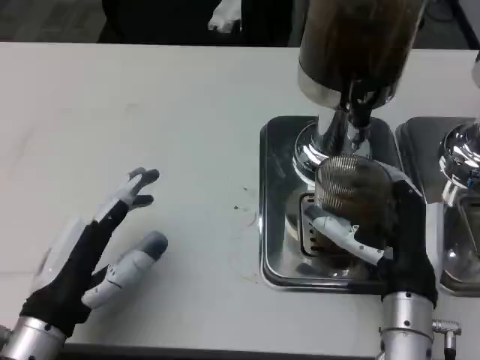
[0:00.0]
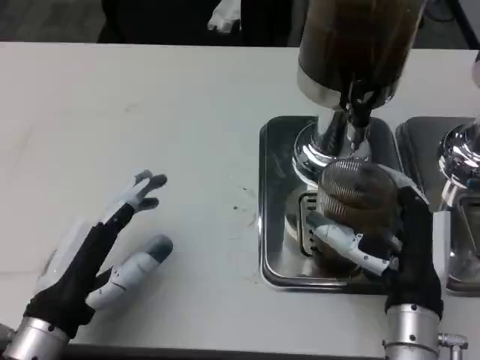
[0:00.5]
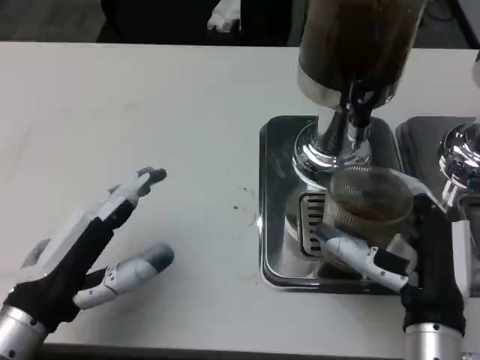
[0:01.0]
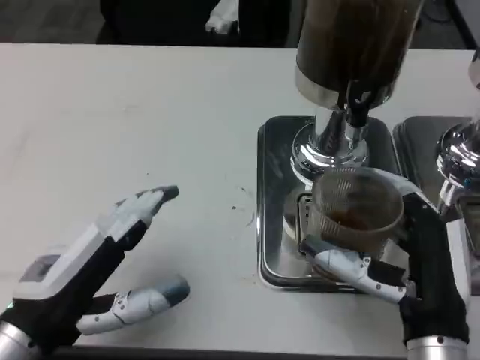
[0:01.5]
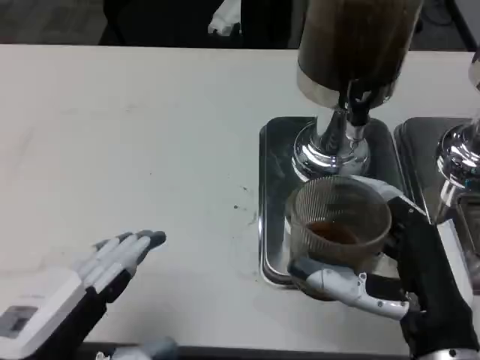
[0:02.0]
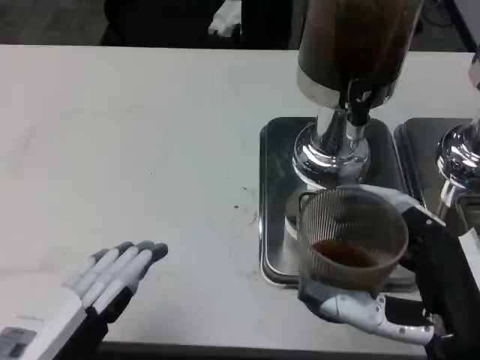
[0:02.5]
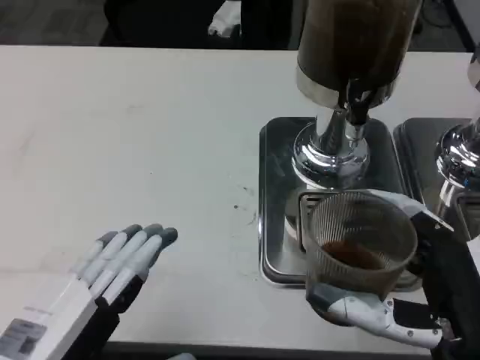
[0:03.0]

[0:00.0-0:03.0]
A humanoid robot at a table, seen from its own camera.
Task of the whole recording: Grasp the cup under the faucet to collect the drink, then remove the cup.
0:00.0 to 0:01.5: The left hand shifts some 5 cm upward, while the right hand shifts some 5 cm backward.
0:01.5 to 0:03.0: The left hand shifts roughly 5 cm backward; the right hand shifts by roughly 5 cm.

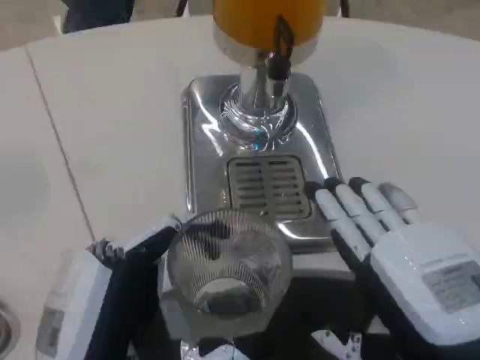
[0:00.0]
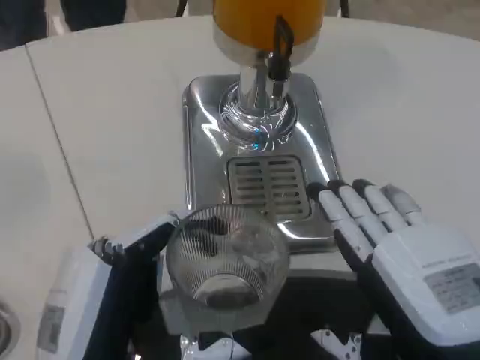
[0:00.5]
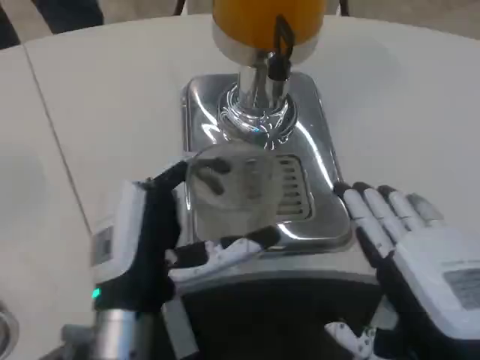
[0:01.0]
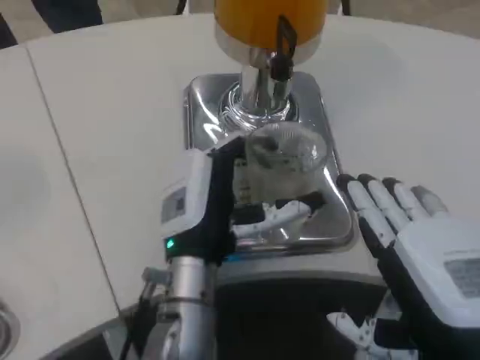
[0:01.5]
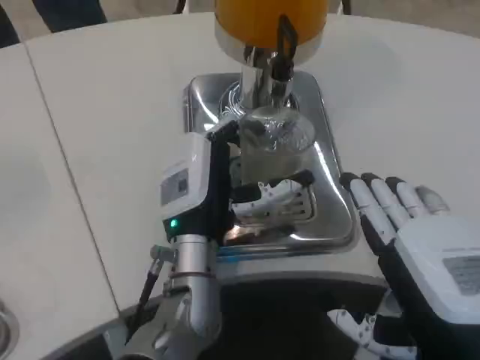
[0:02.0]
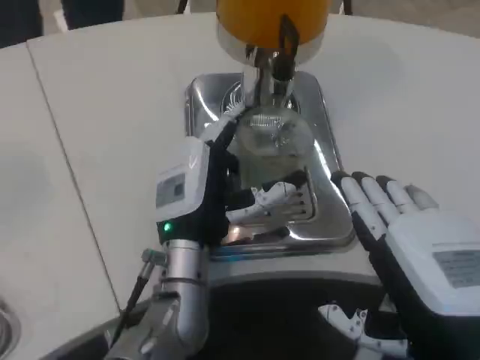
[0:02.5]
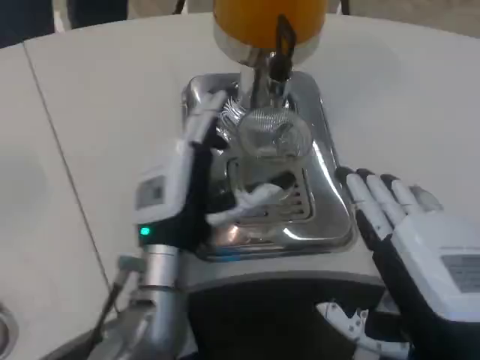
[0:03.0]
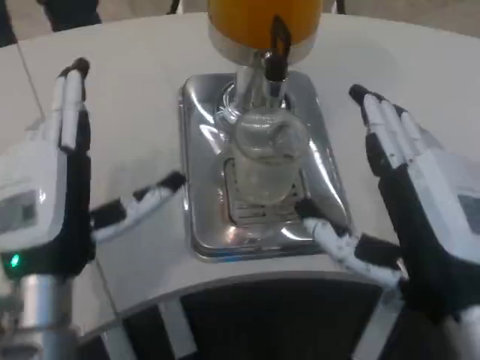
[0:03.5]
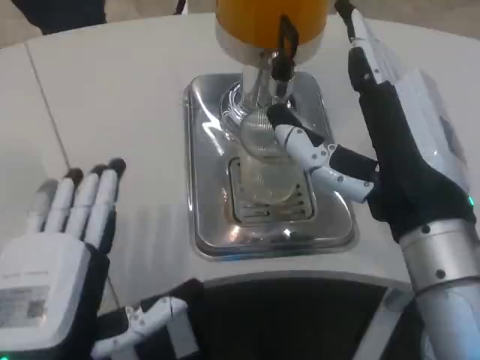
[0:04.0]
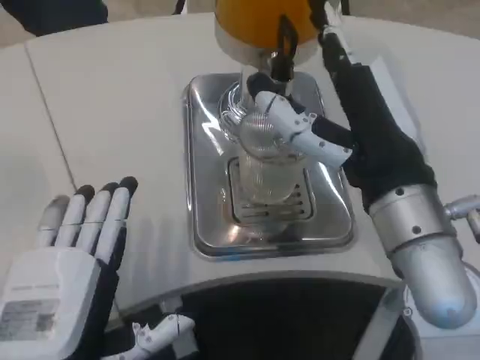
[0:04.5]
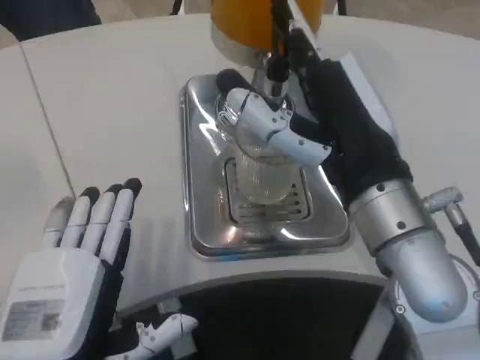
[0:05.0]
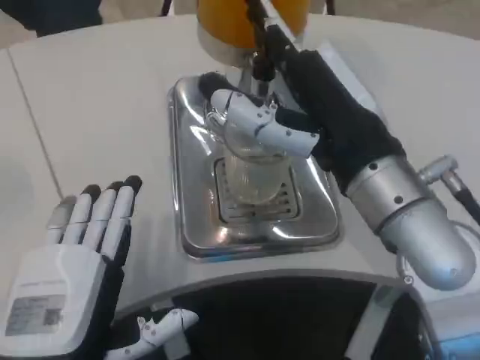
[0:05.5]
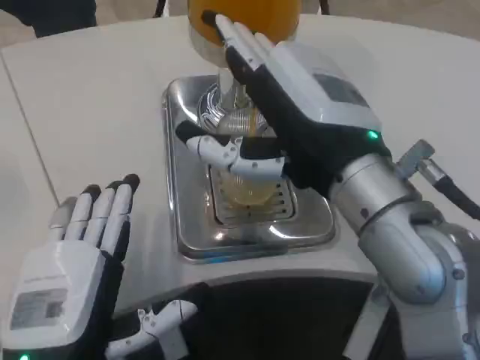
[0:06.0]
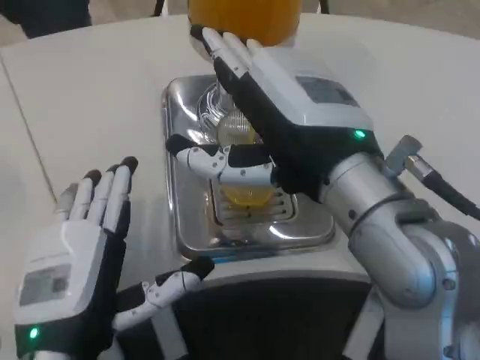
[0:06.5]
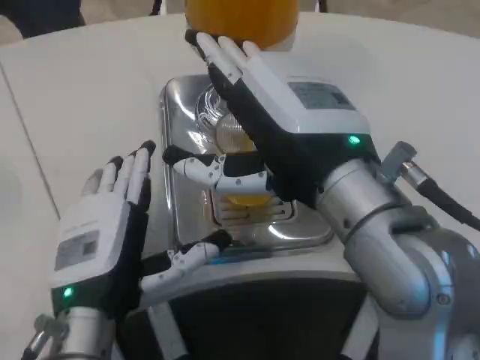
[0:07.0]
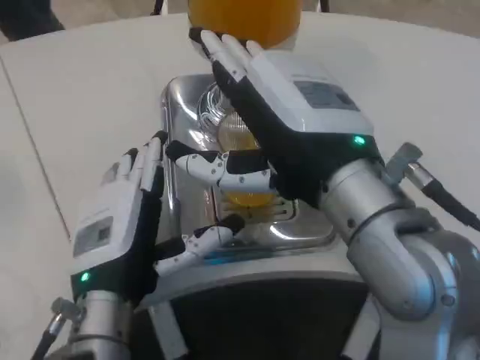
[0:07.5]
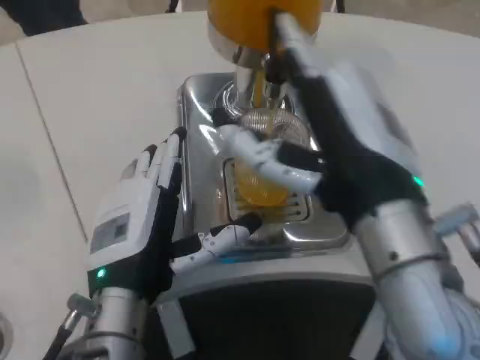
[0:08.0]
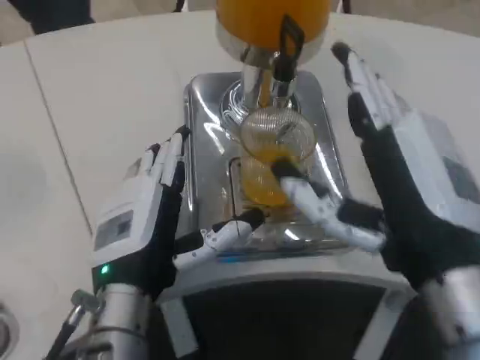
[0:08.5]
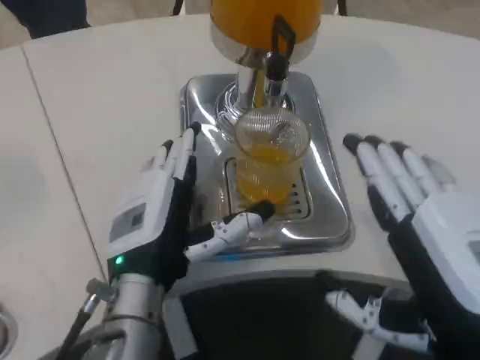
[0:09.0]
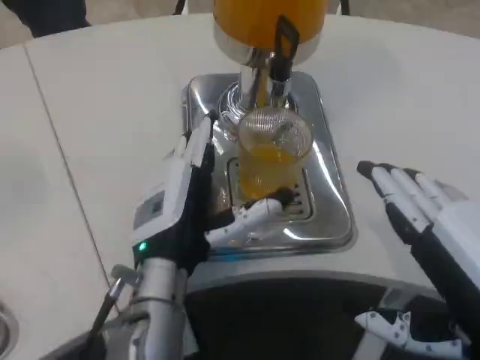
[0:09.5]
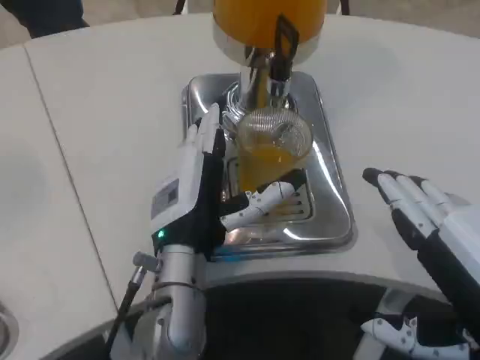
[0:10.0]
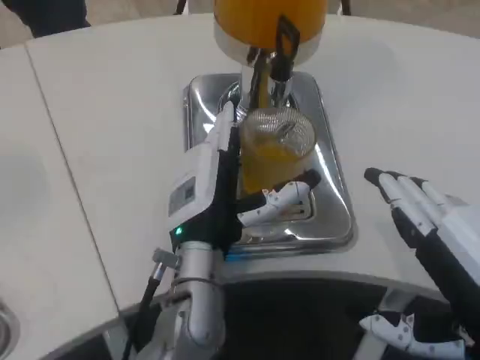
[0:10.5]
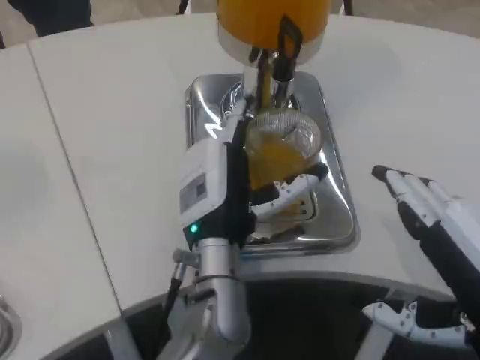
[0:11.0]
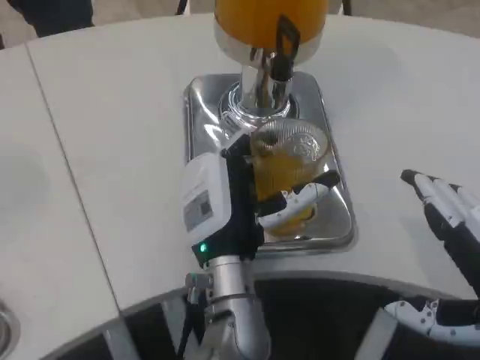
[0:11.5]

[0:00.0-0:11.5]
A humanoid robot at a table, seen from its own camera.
Task of the whole recording: Grasp the cup under the faucet to collect the drink, then remove the cup.
0:00.0 to 0:02.0: The left hand goes some 20 cm forward and to the right.
0:02.0 to 0:04.0: The right hand shifts roughly 5 cm forward. The left hand moves backward and to the left, approximately 20 cm.
0:04.0 to 0:06.0: The right hand changes place by roughly 5 cm.
0:06.0 to 0:07.5: The left hand moves forward, some 5 cm.
0:07.5 to 0:09.5: The right hand shifts approximately 15 cm to the right, backward and downward, while the left hand moves some 5 cm.
0:09.5 to 0:11.5: The left hand moves to the right, roughly 10 cm.

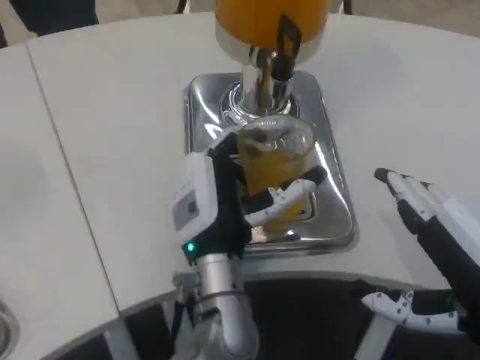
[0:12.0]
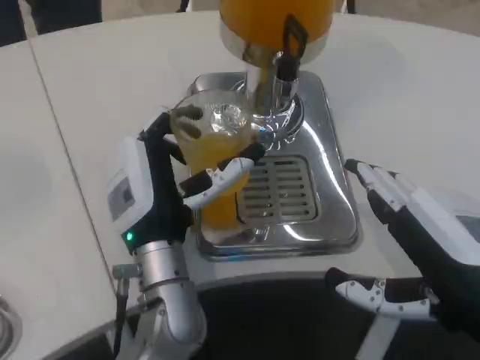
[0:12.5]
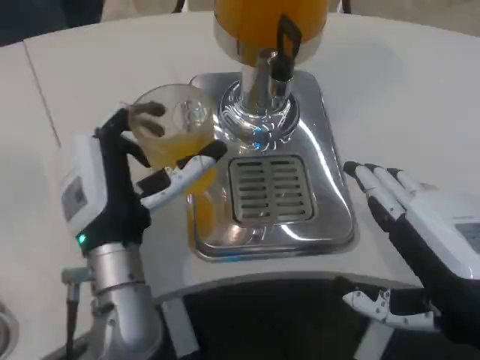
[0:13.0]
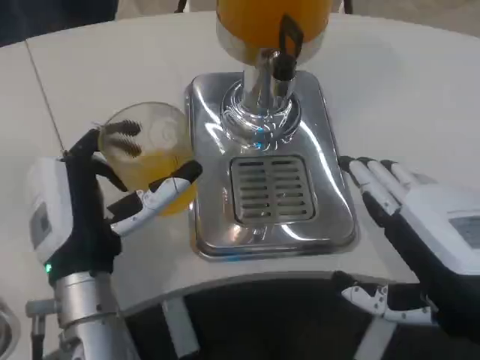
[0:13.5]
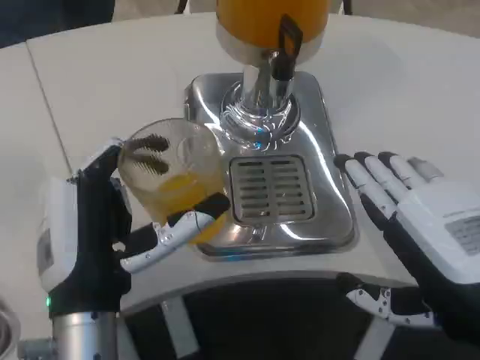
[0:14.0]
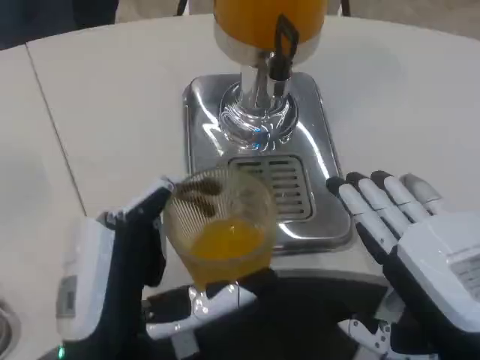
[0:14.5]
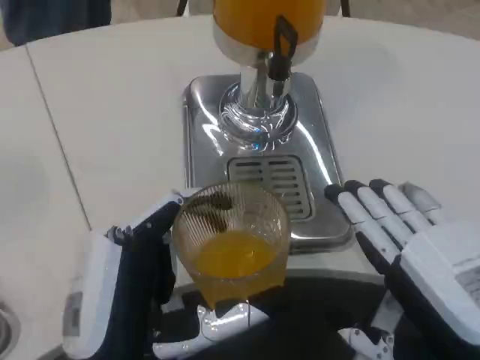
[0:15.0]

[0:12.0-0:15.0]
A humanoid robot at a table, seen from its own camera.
Task of the whole recording: Grasp the cup under the faucet to collect the drink, then remove the cup.
0:12.0 to 0:13.5: The left hand moves to the left, approximately 10 cm.
0:13.5 to 0:15.0: The left hand goes some 10 cm backward.

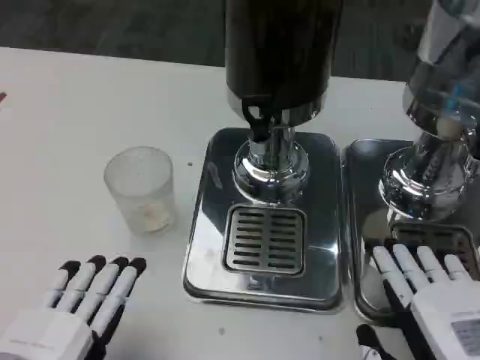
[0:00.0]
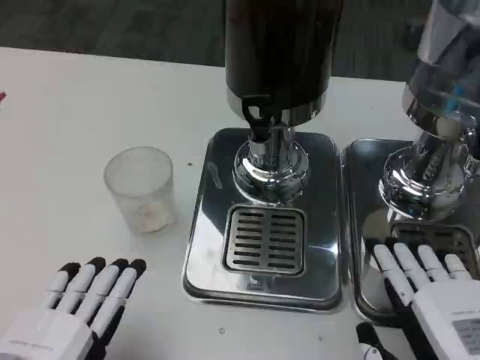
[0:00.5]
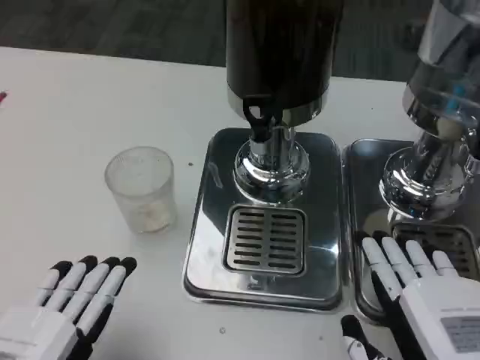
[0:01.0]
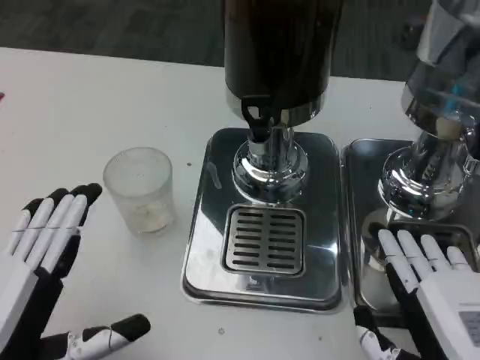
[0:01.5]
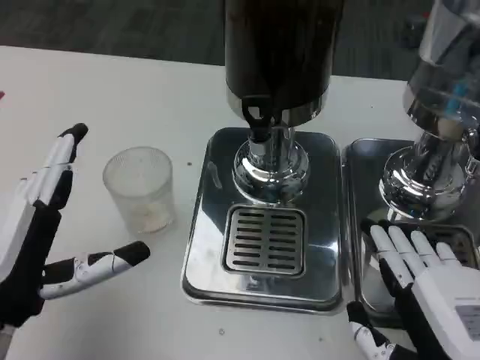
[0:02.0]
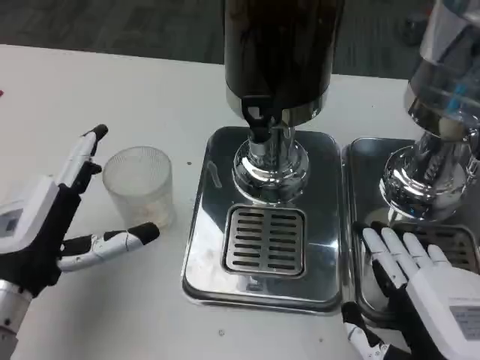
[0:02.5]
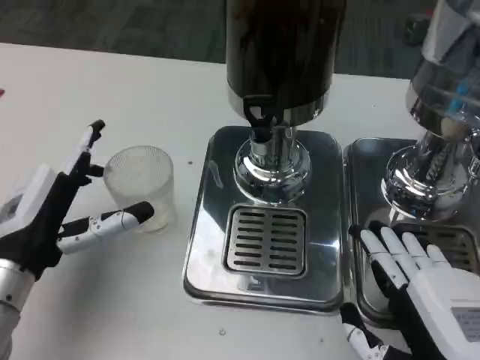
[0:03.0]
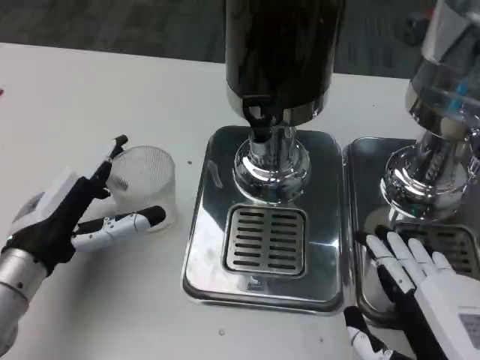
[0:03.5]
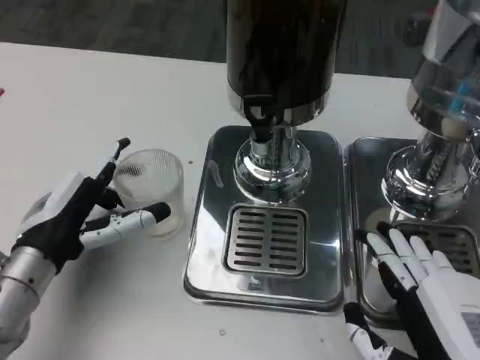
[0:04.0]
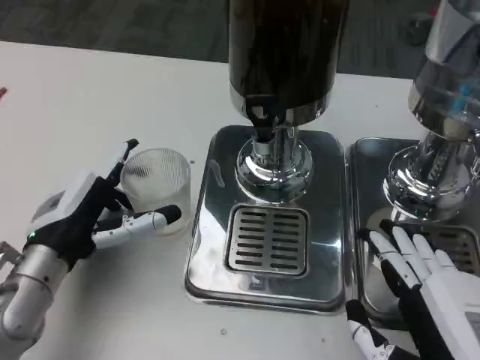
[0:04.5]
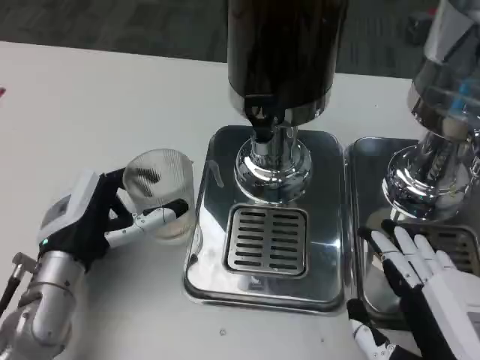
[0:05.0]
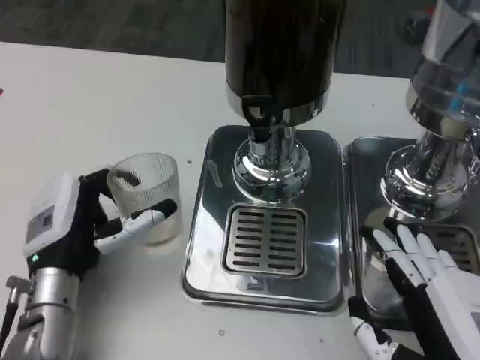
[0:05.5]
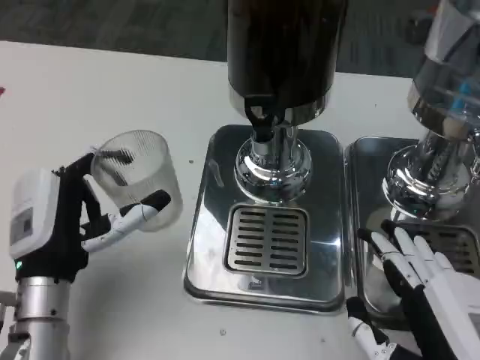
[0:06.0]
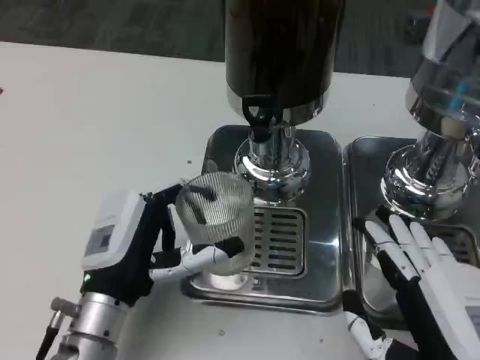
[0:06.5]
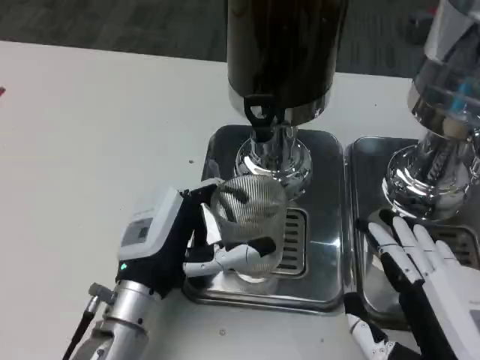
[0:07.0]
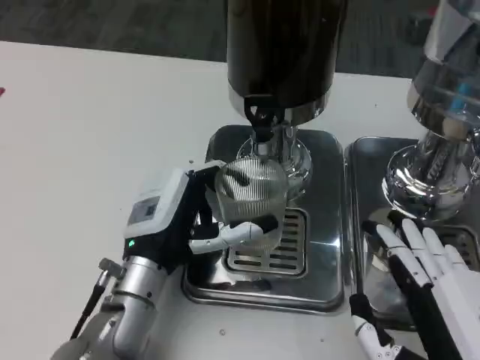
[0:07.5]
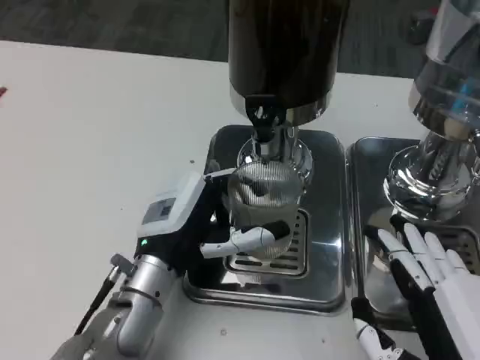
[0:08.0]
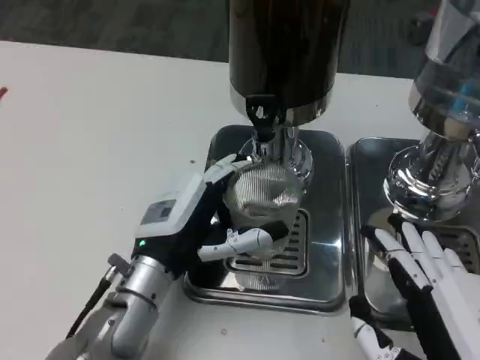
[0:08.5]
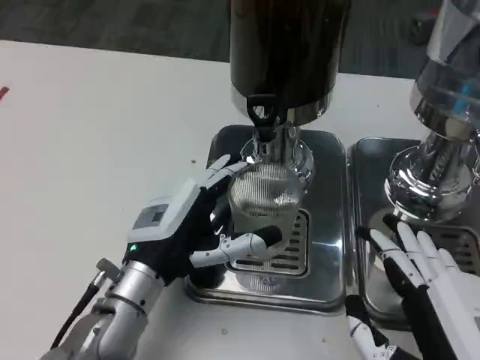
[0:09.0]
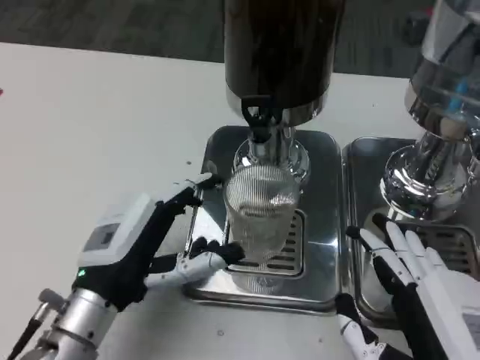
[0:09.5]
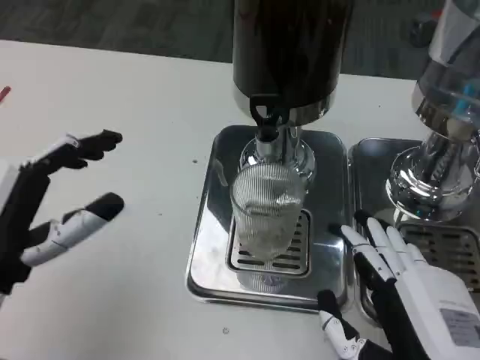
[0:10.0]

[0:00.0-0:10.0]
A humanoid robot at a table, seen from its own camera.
Task of the whole recording: Grasp the cup under the faucet to collect the drink, then remove the cup.
0:00.0 to 0:02.0: The left hand moves forward, approximately 10 cm.
0:02.0 to 0:04.0: The left hand moves forward, approximately 10 cm.
0:04.0 to 0:06.0: The left hand shifts by approximately 5 cm.
0:06.0 to 0:08.0: The left hand moves to the right, roughly 10 cm.
0:08.0 to 0:10.0: The left hand shifts some 15 cm to the left, upward and backward.
